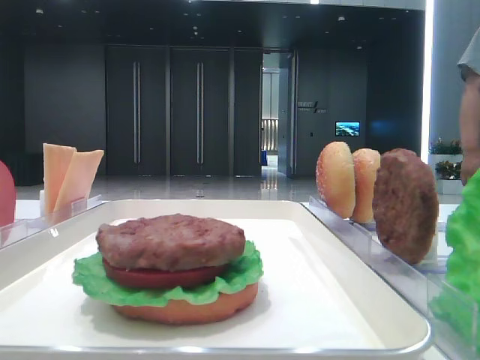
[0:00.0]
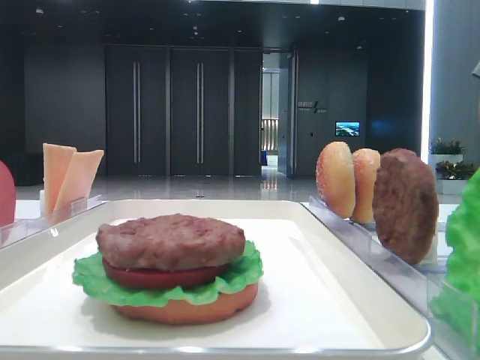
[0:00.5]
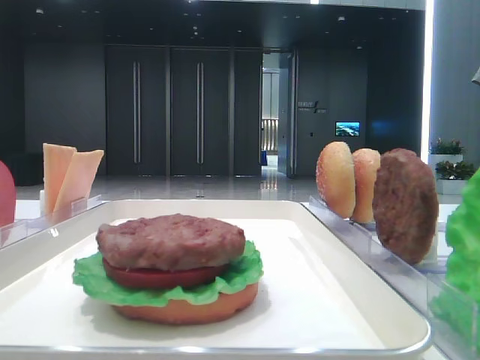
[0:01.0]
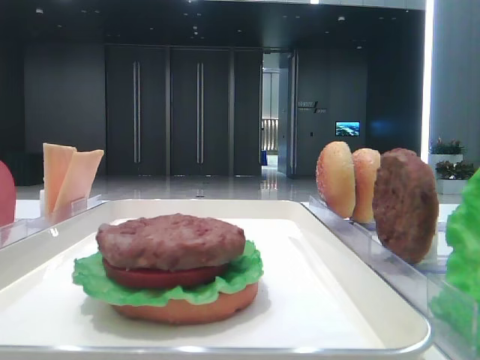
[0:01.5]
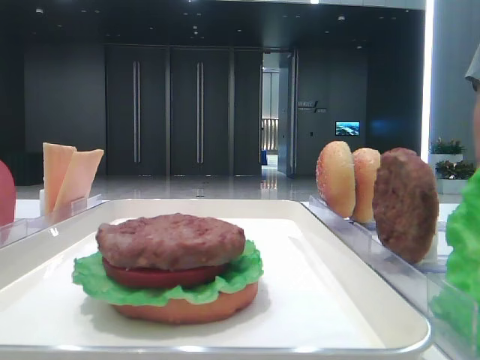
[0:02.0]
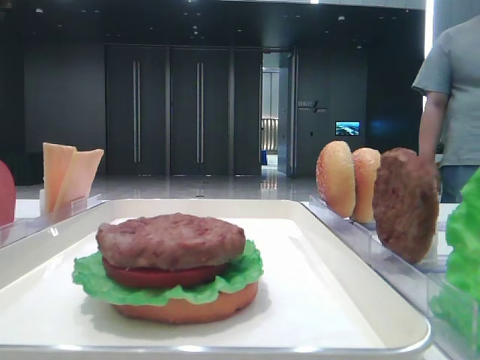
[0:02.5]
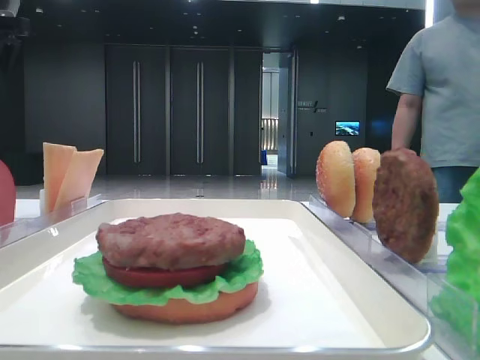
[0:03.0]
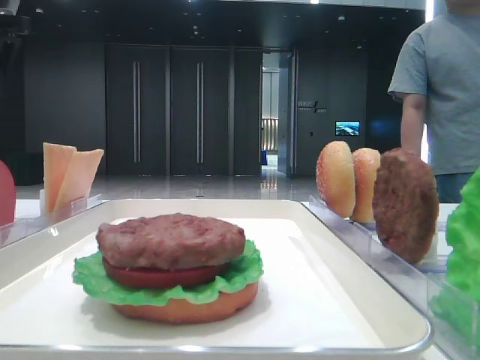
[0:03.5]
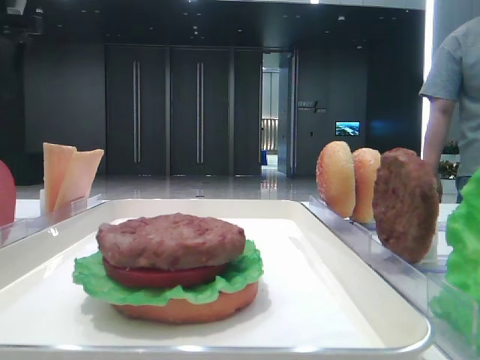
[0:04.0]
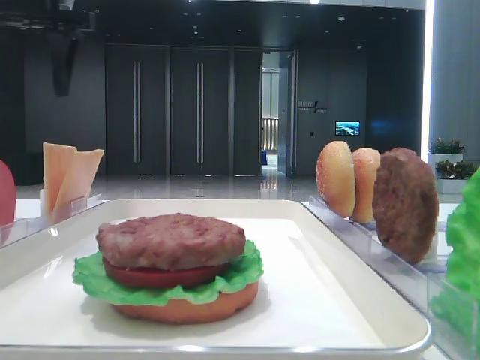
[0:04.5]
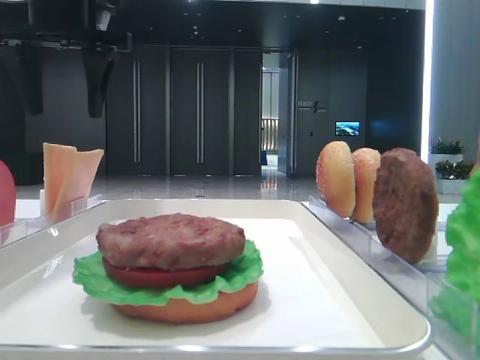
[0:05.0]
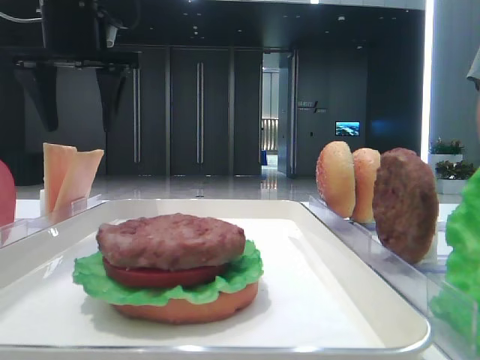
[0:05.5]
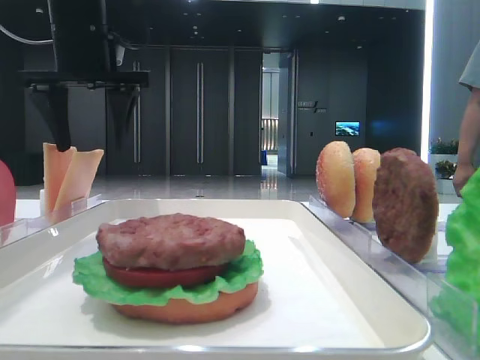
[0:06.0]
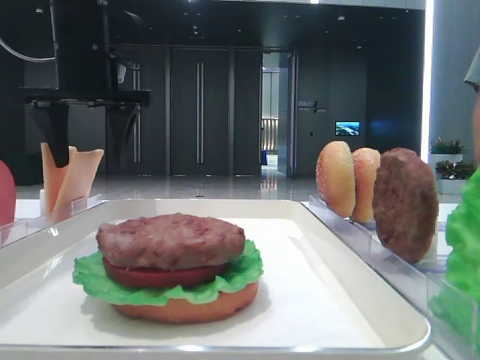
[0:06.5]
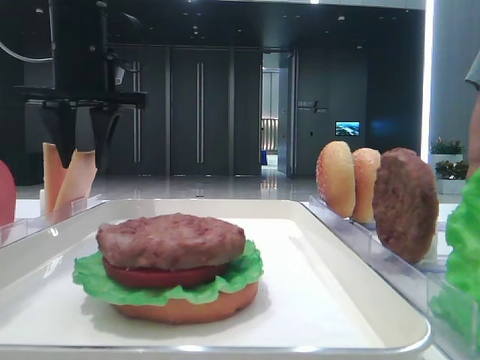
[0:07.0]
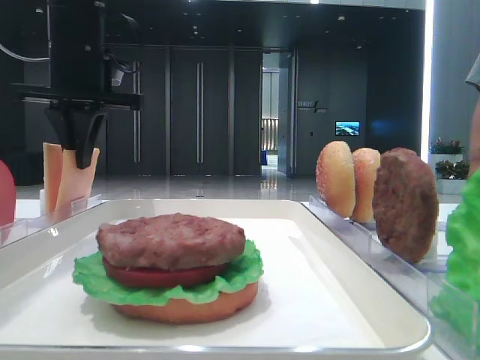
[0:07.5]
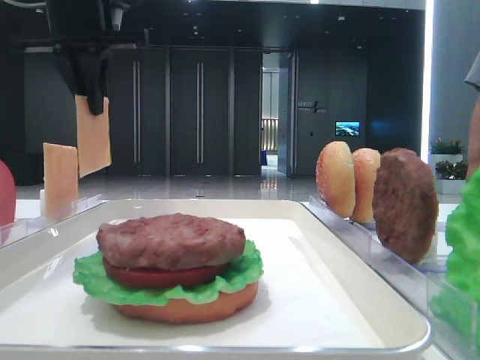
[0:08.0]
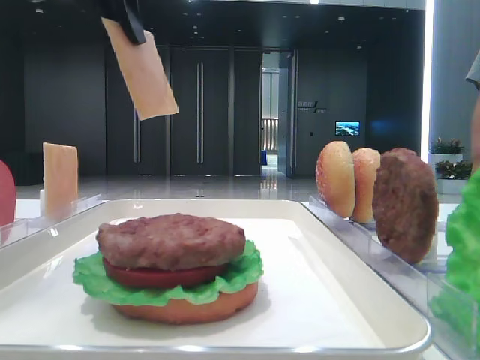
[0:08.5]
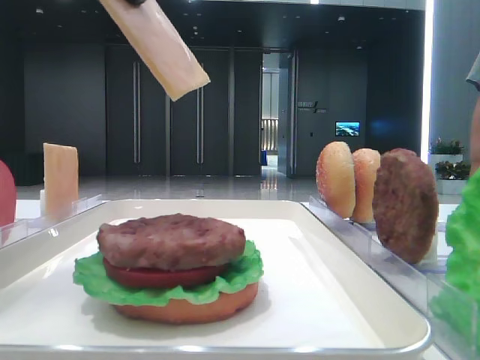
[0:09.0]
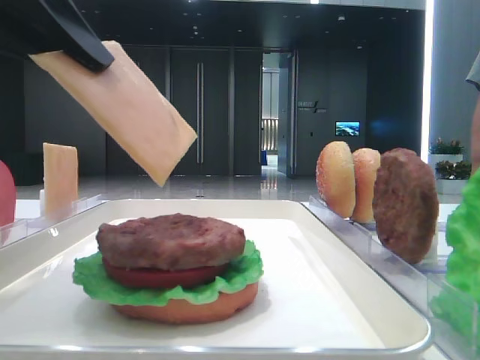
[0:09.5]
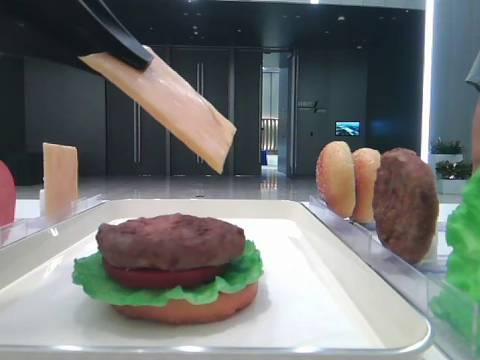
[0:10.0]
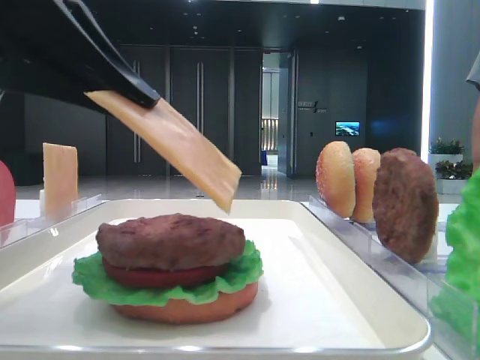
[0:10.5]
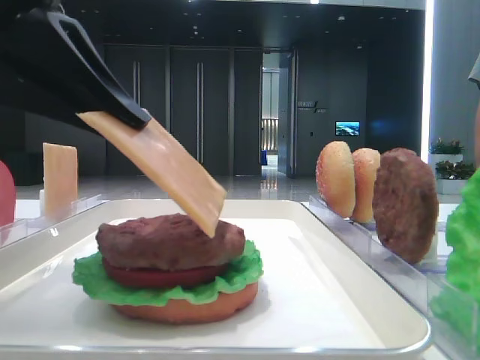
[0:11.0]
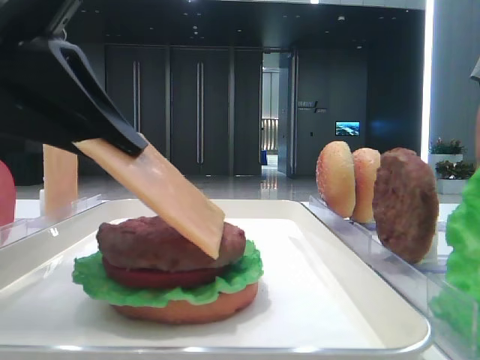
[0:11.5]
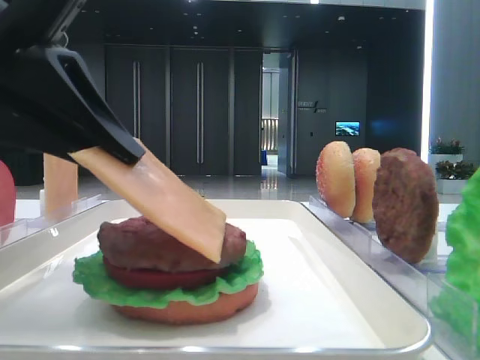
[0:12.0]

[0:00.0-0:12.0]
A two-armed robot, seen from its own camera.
Step, 0:00.0 to 0:07.5: Pick up the cheese slice with the left hand.
0:04.0 to 0:06.0: The left gripper heads to the right and downward, covering roughly 15 cm.
0:06.0 to 0:08.0: The left gripper closes up.
0:08.0 to 0:10.0: The left gripper is displaced backward by approximately 20 cm.
0:10.0 to 0:12.0: The grippers make only small movements.

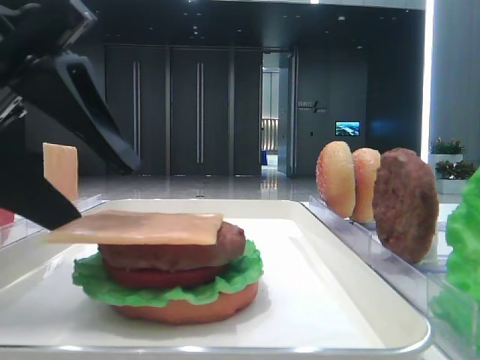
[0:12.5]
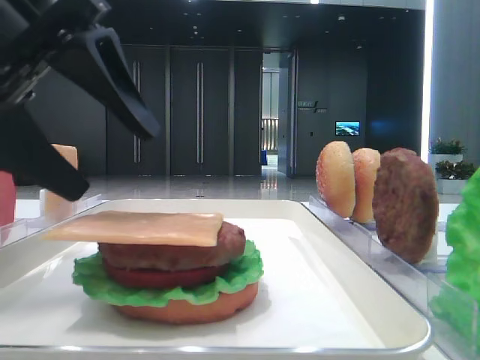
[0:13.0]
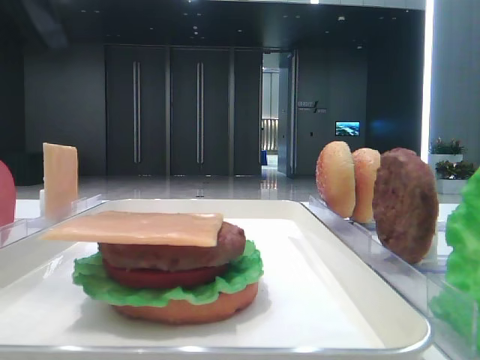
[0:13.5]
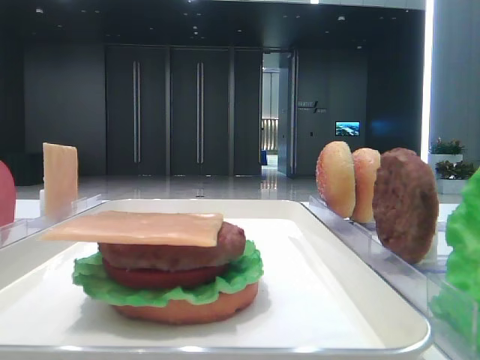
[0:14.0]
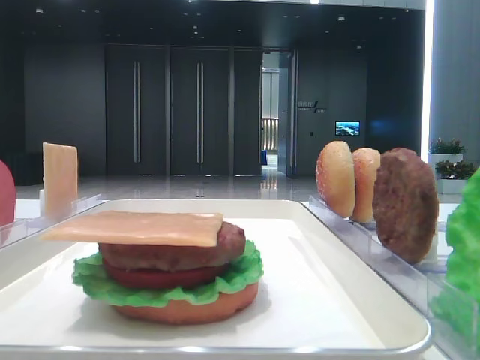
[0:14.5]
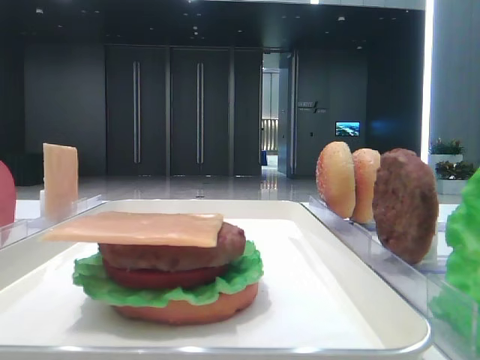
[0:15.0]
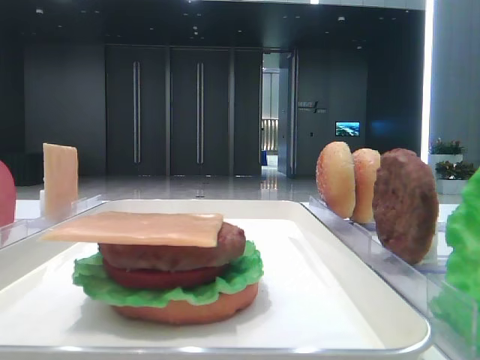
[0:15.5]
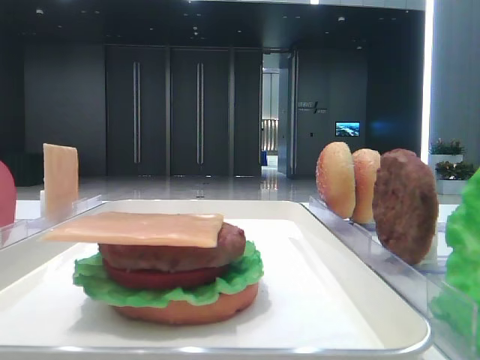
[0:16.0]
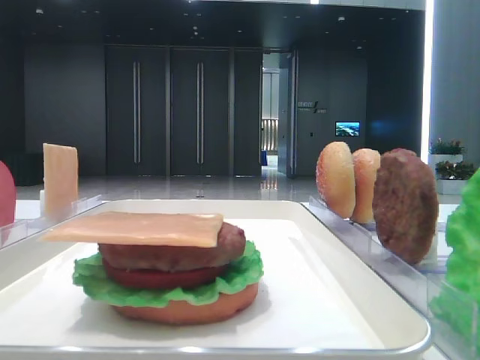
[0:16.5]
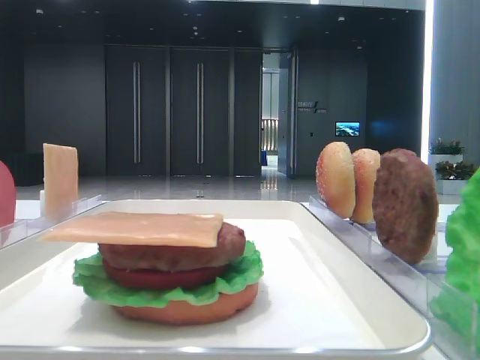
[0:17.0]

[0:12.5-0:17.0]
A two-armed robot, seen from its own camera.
0:12.5 to 0:14.5: The left gripper travels to the left and upward by roughly 20 cm.

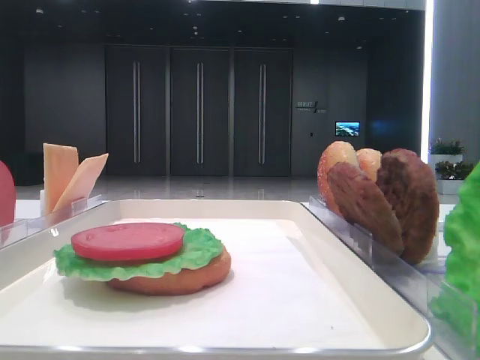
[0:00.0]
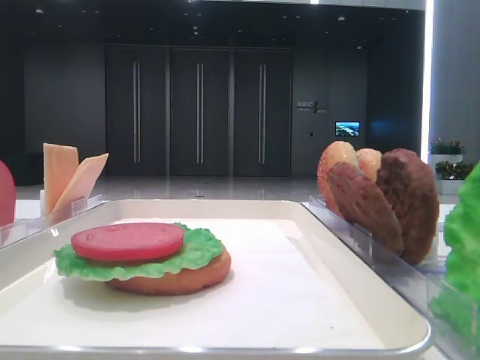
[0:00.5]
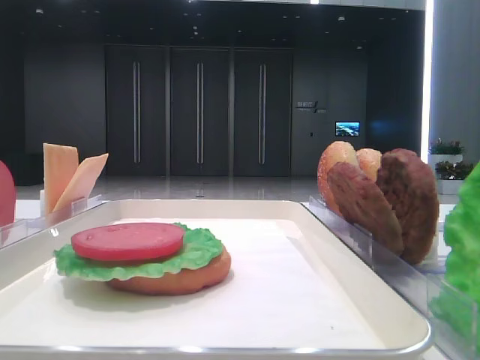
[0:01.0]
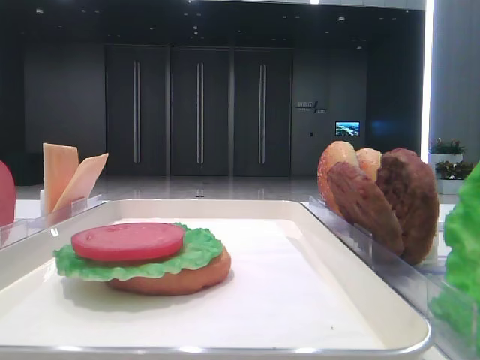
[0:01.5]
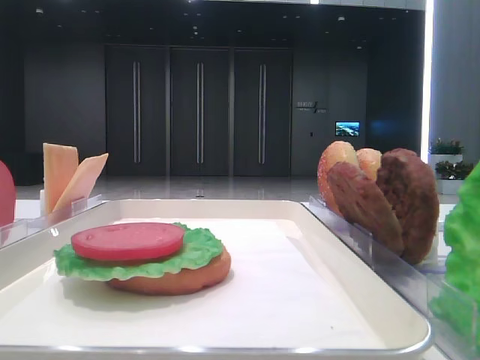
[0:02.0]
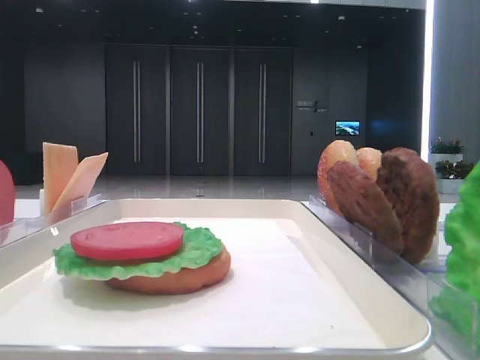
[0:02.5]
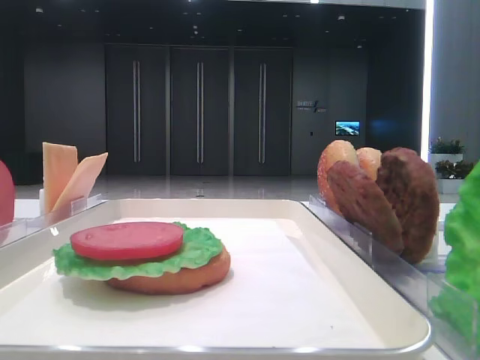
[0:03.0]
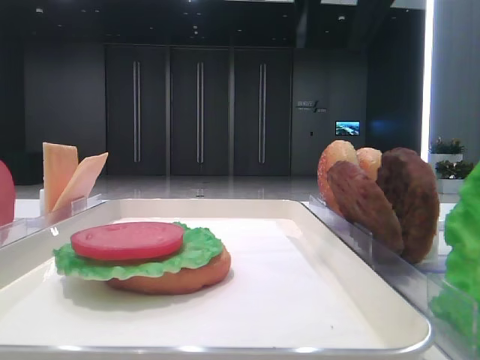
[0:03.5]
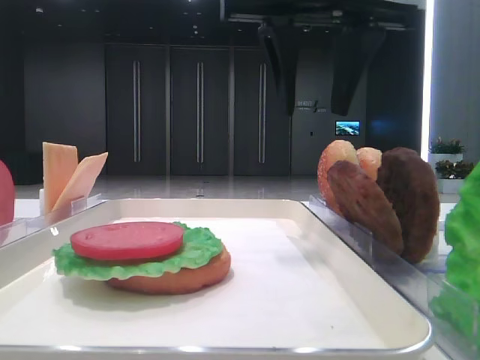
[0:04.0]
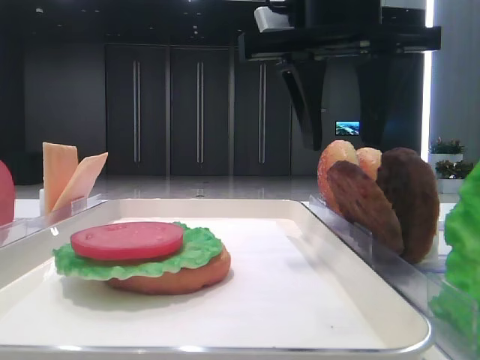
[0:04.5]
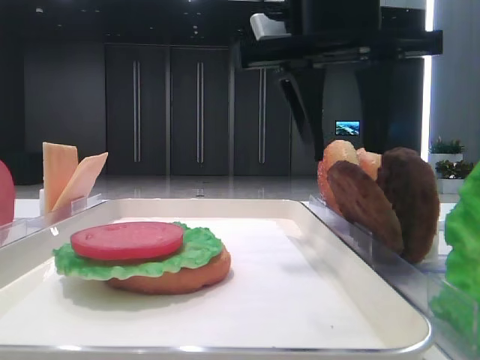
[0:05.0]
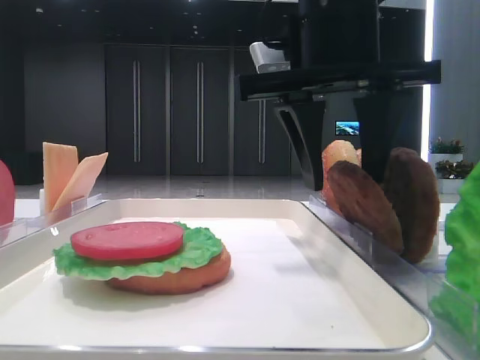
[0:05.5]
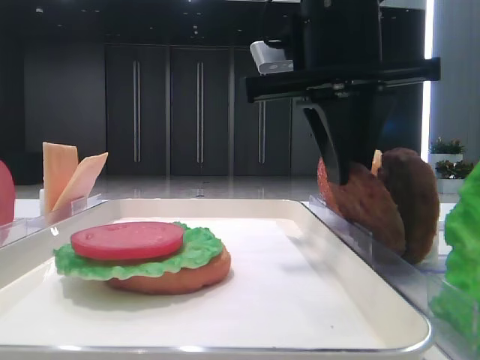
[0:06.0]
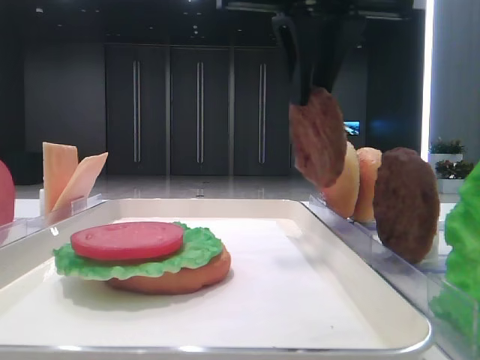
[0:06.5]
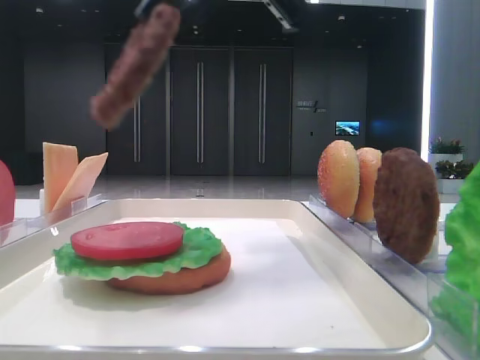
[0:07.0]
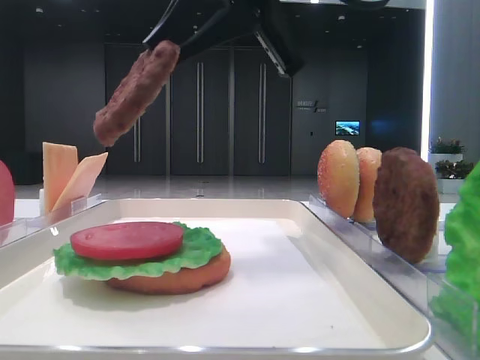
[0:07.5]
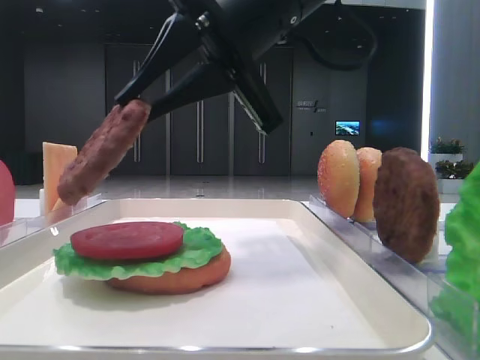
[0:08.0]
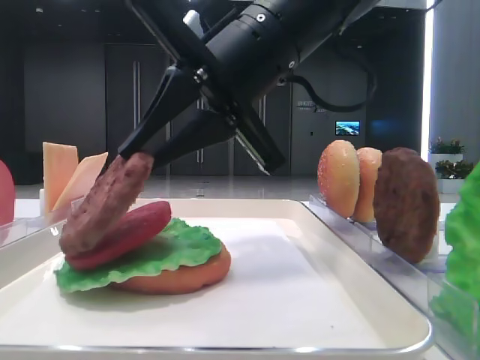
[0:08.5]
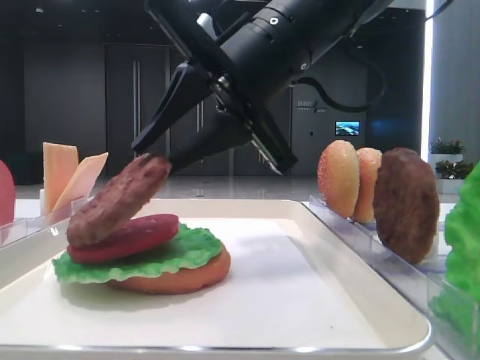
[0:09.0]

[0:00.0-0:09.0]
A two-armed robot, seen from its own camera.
Step, 0:00.0 to 0:06.0: Grab the patty with the right hand.
0:02.0 to 0:04.5: The right gripper moves forward and to the left, about 30 cm.
0:04.5 to 0:07.0: The right gripper shifts some 10 cm upward and to the left, and closes its fingers.
0:07.0 to 0:09.0: The right gripper moves downward, approximately 10 cm, and opens its fingers.
